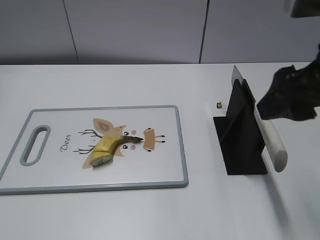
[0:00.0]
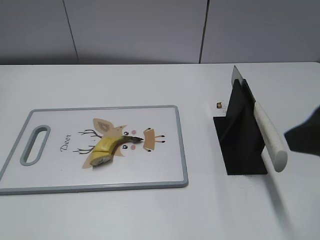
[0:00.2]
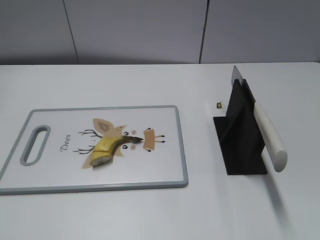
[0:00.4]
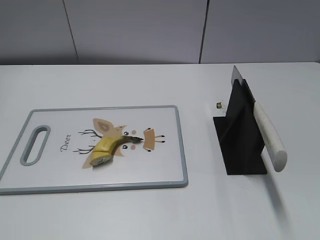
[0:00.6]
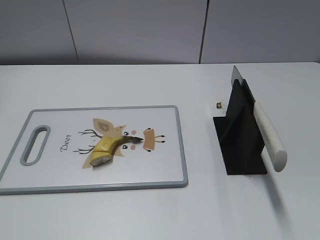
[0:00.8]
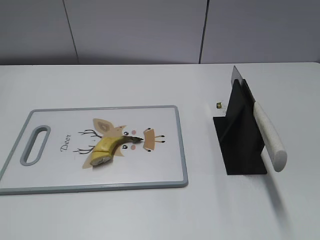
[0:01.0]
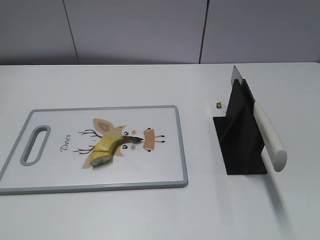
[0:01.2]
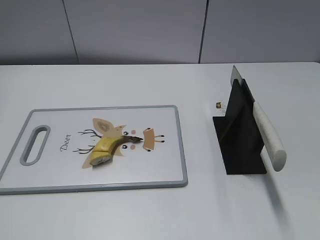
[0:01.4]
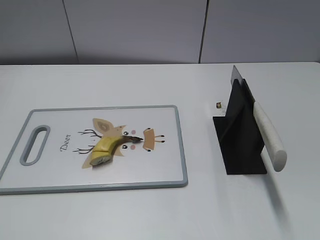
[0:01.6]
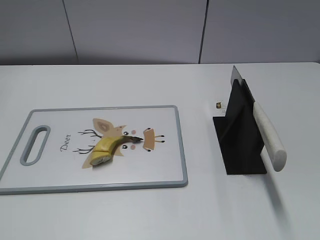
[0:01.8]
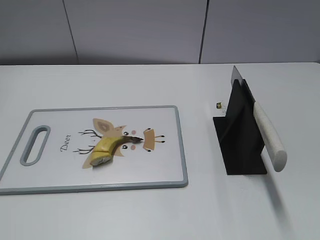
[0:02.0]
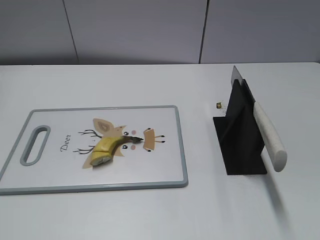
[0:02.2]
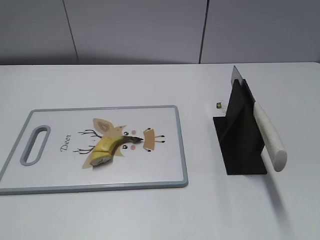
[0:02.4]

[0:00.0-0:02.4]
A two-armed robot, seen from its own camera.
Task of the whole recording: cut banana.
Step, 0:00.0 to 0:02.4: Place the knife on the storage rack with your right hand.
0:00.0 to 0:01.2: The right gripper heads backward and to the right, covering roughly 25 cm.

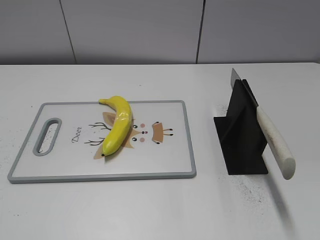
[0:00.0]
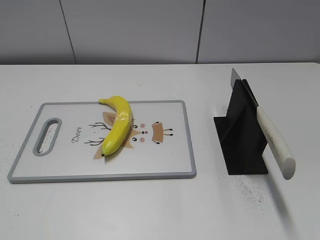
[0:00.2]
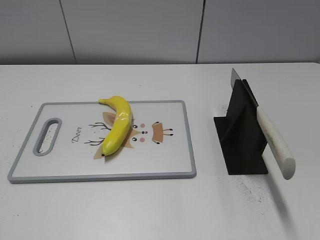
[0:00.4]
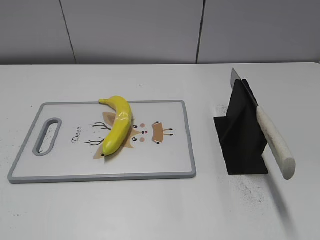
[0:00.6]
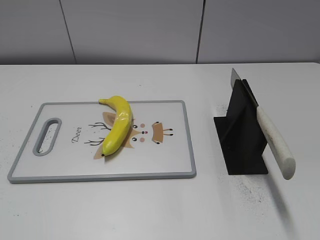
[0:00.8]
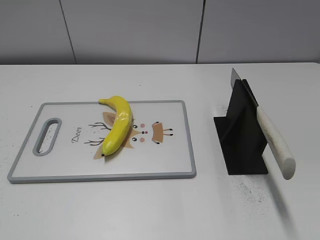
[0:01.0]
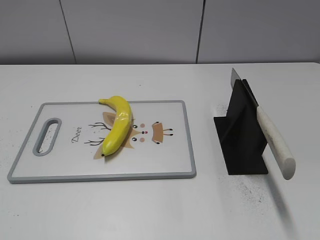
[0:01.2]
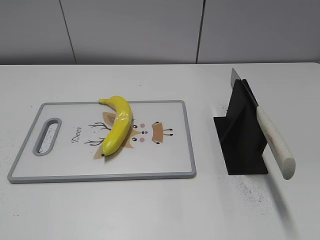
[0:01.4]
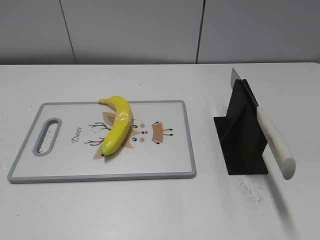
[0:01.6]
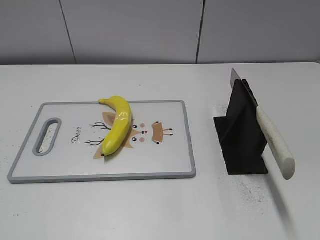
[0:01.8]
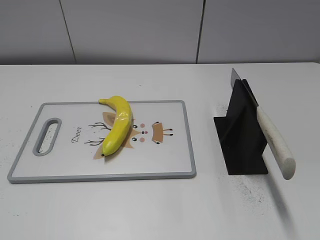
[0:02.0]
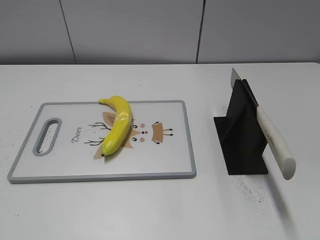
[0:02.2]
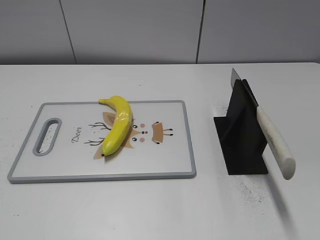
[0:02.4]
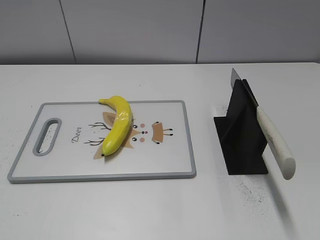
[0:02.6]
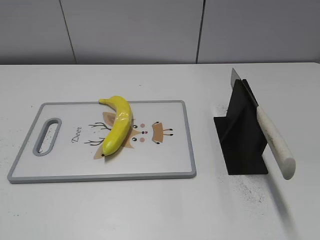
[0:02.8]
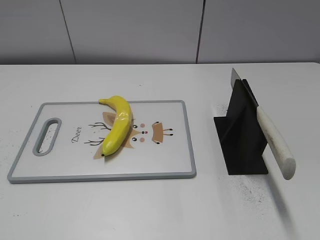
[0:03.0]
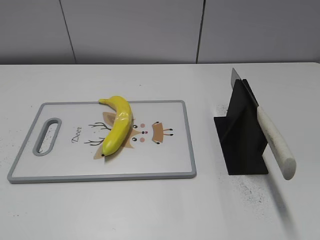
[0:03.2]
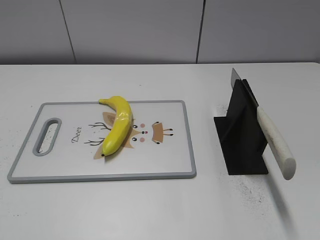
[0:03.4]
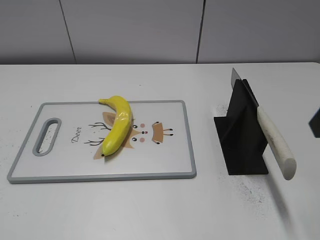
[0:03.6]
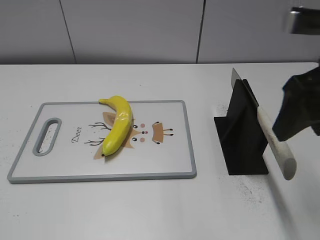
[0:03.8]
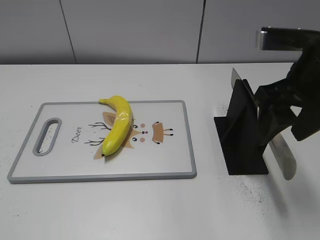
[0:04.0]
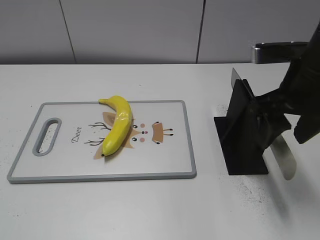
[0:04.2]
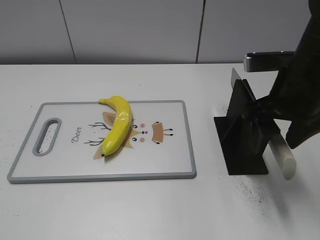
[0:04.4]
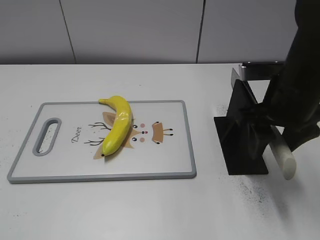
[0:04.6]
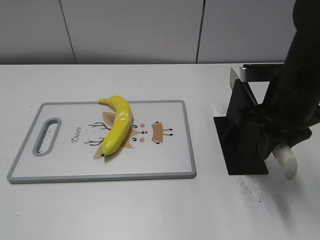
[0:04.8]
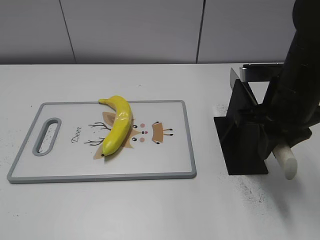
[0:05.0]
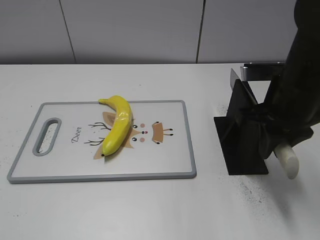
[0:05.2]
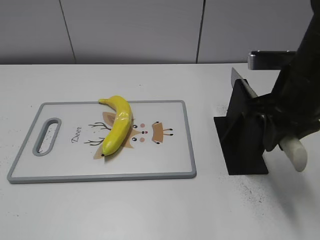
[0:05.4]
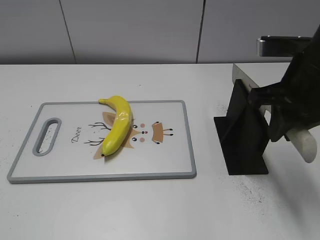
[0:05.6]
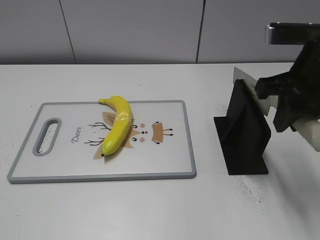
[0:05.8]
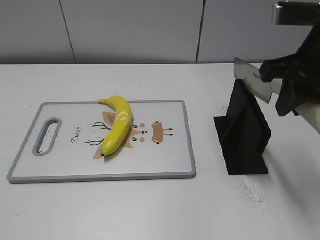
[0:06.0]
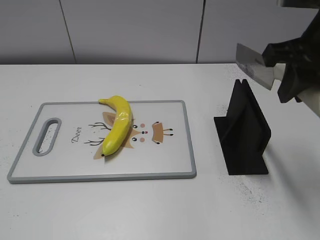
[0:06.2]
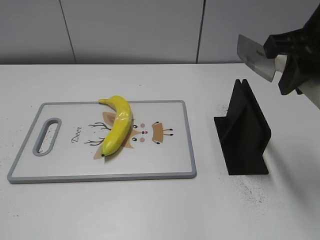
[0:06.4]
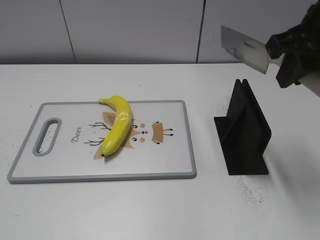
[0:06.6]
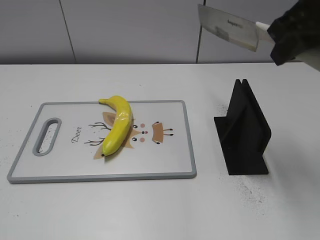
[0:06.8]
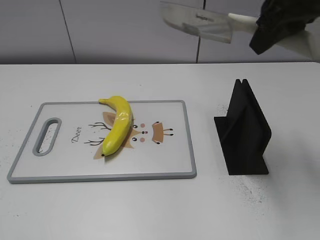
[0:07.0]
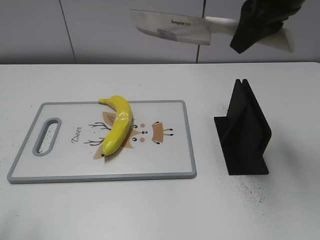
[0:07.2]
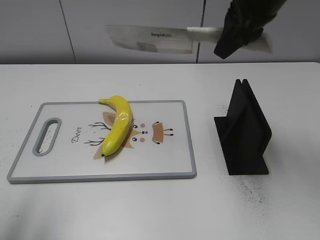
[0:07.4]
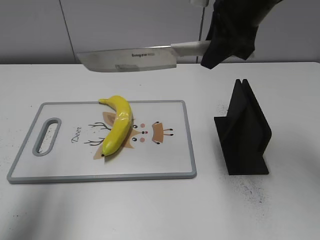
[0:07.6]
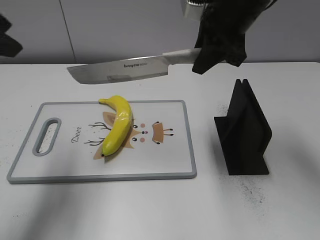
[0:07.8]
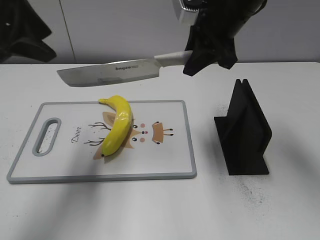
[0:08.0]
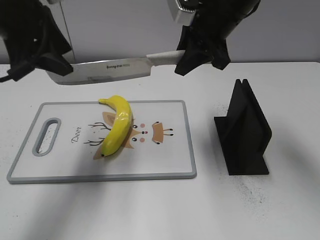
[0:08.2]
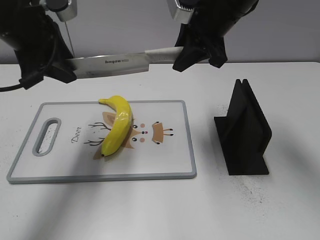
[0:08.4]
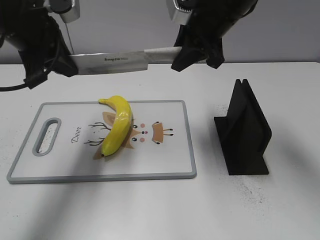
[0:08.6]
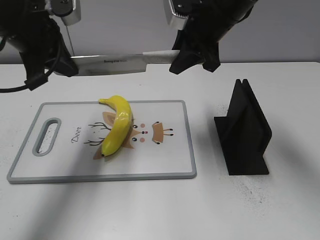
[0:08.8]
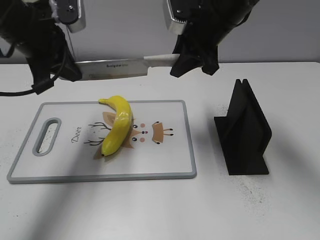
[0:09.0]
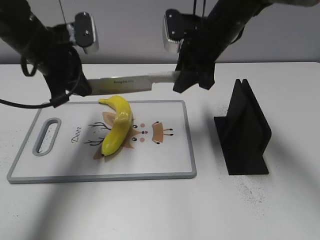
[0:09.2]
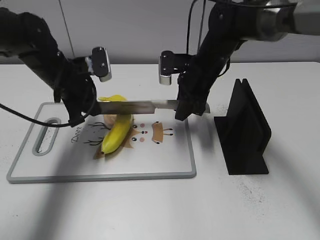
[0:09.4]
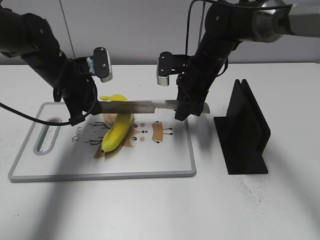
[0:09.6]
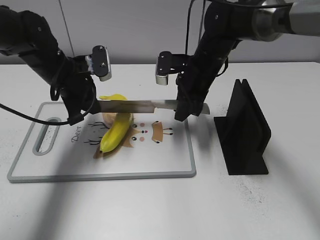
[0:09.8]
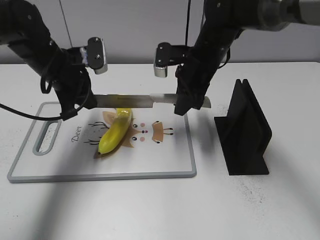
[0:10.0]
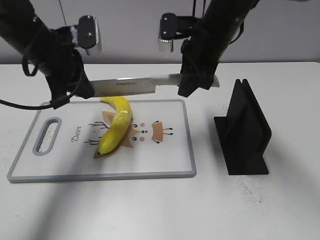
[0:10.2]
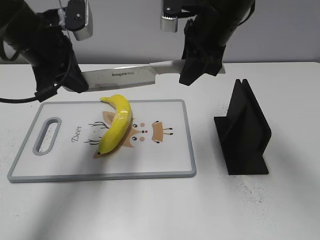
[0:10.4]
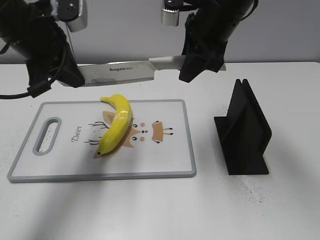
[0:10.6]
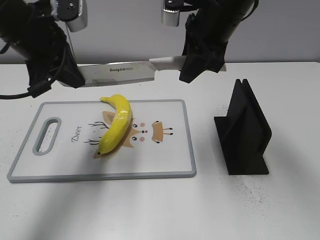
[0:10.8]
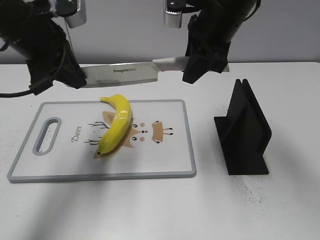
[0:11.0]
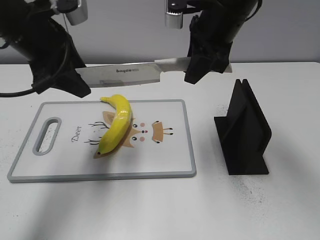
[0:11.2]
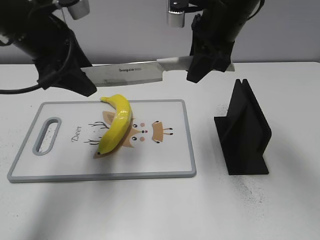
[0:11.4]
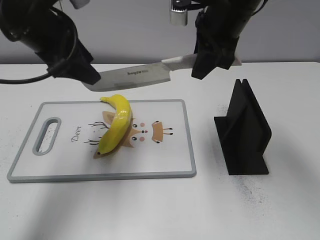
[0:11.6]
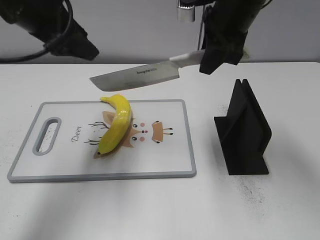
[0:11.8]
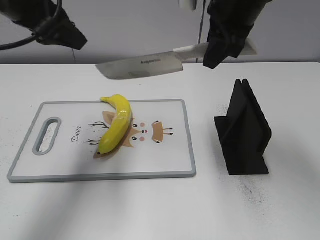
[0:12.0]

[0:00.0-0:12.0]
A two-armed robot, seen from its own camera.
Task of the whole recording: cut plastic banana.
Step, 0:00.0 to 0:05.8: Grab the knife handle with your right hand.
Step, 0:06.0 to 0:10.6: Hold the blade with your left hand.
0:03.0 to 0:04.4: The right gripper heads forward, to the left and downward, covering approximately 25 cm.
0:04.4 to 0:06.0: The right gripper travels upward by approximately 5 cm, and closes its fingers.
0:06.0 to 0:07.6: The right gripper is displaced forward and to the left by roughly 10 cm. Meanwhile the left gripper is displaced forward by approximately 20 cm.
0:07.6 to 0:09.0: The right gripper is displaced downward by approximately 5 cm, while the left gripper is displaced forward, downward and to the right by some 20 cm, and closes its fingers.
0:09.0 to 0:10.4: The left gripper travels downward and back again, about 15 cm each way. The right gripper reaches approximately 10 cm downward, then returns.
0:10.4 to 0:12.0: The left gripper heads upward, covering about 5 cm, and opens its fingers.

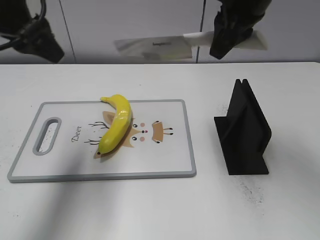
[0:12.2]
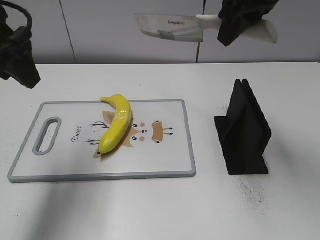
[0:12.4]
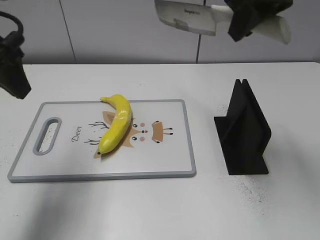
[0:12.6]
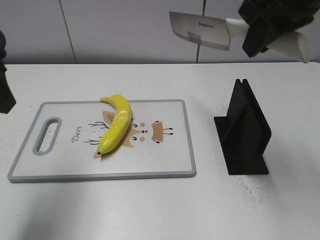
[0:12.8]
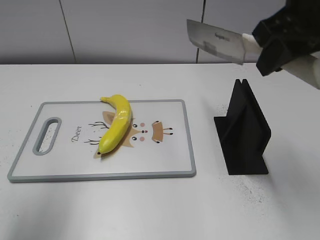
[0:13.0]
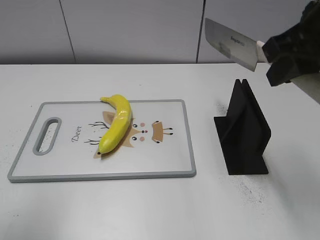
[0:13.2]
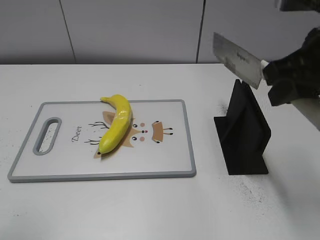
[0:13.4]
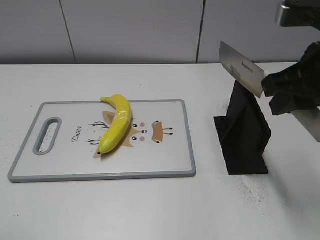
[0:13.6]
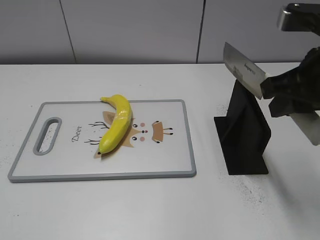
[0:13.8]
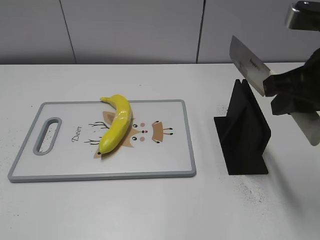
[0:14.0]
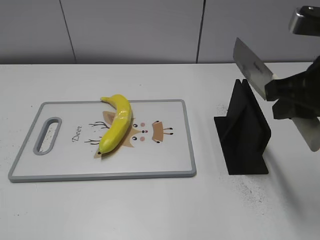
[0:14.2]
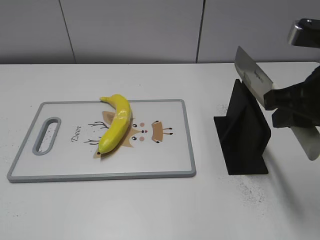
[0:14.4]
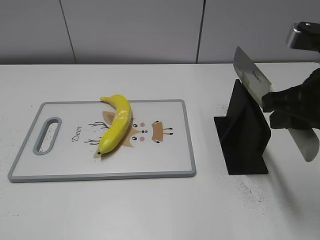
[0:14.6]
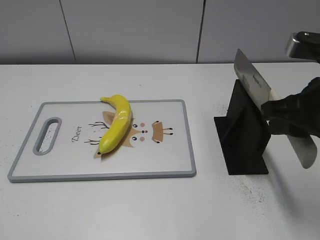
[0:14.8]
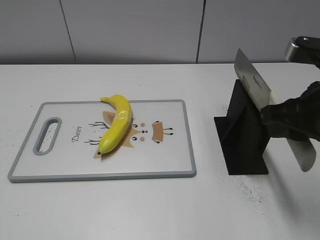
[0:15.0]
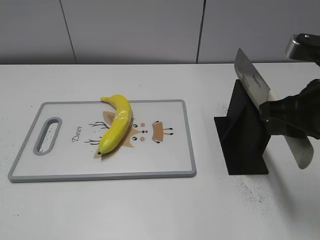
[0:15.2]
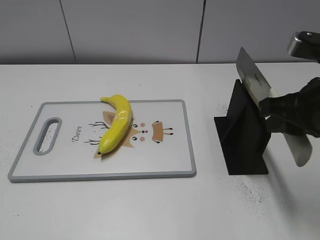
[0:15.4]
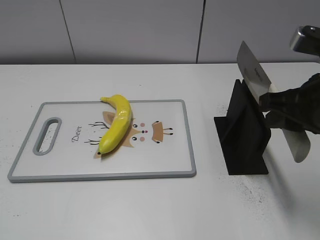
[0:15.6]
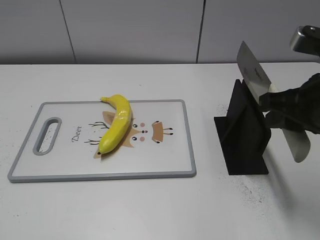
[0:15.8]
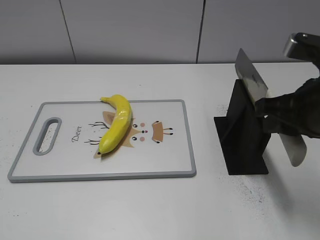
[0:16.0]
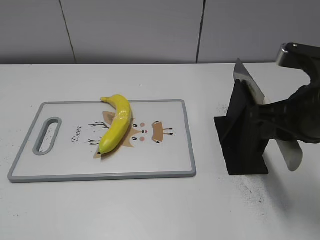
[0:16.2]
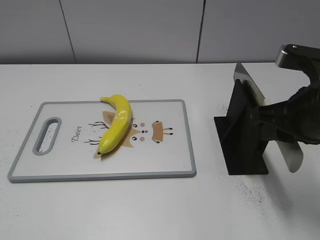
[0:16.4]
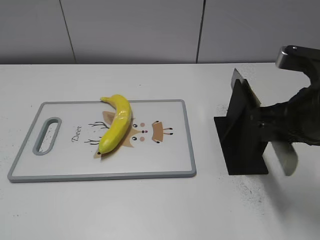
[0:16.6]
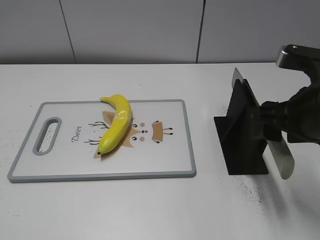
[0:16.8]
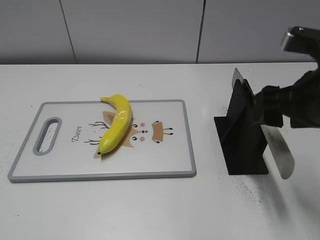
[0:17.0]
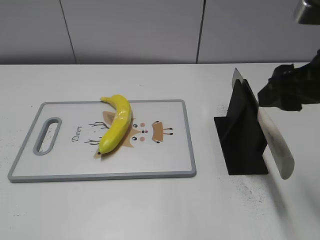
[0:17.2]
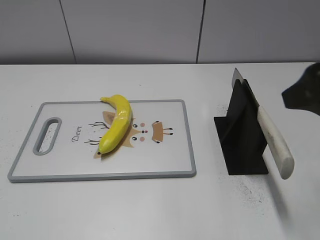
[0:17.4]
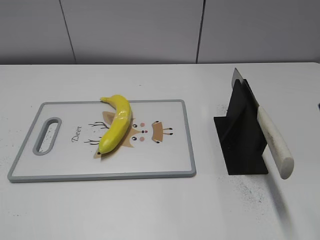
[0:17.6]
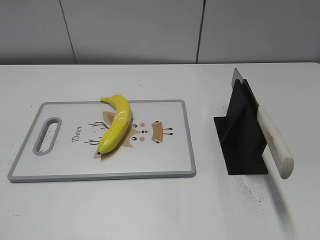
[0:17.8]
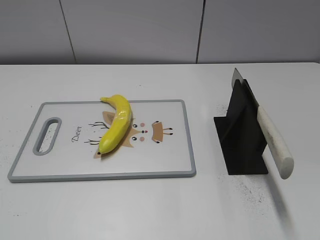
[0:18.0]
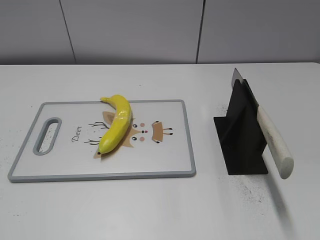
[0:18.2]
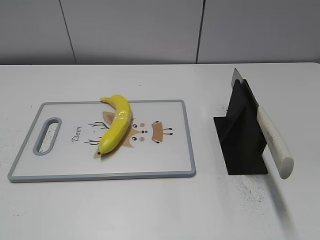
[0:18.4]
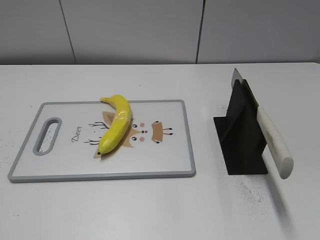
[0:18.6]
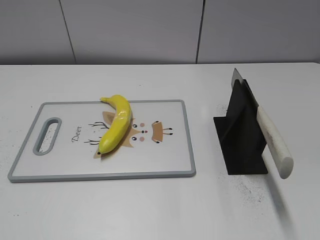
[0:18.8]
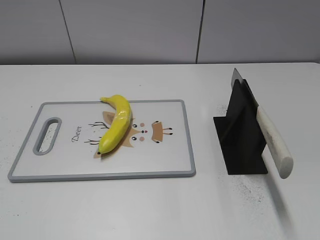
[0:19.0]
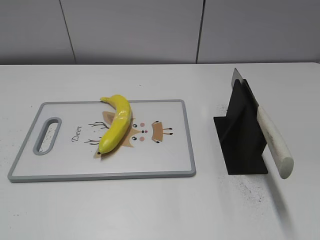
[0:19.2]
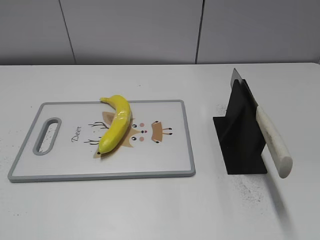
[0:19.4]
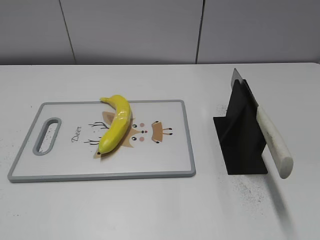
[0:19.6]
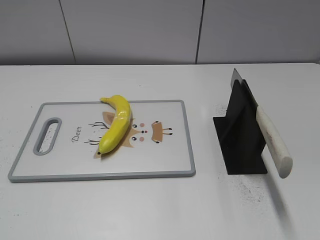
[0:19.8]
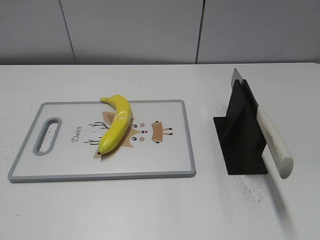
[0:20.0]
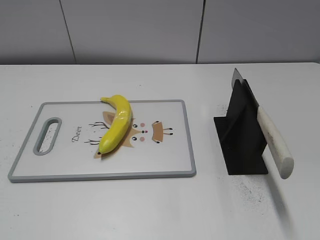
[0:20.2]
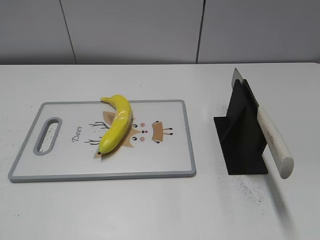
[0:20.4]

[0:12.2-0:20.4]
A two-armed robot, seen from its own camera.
Task of the whole recording: cut plastic banana.
Step, 0:12.4 to 0:13.6: Secure the blade with your left hand.
Step, 0:13.8 to 0:20.4: Place the knife on the storage rack with your right hand.
0:12.2 to 0:13.8: The right gripper shifts approximately 15 cm backward and to the right. Meanwhile the left gripper shifts some 25 cm backward.
0:15.4 to 0:17.2: The right gripper opens its fingers.
0:17.2 to 0:18.8: The right gripper heads backward and to the right, covering roughly 25 cm.
